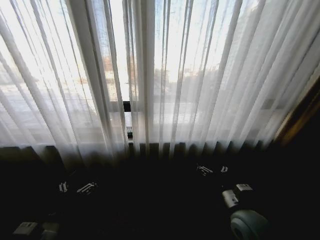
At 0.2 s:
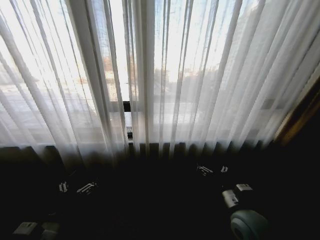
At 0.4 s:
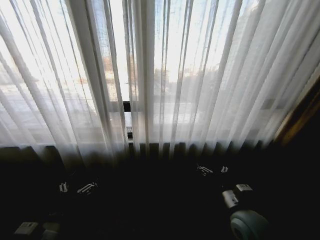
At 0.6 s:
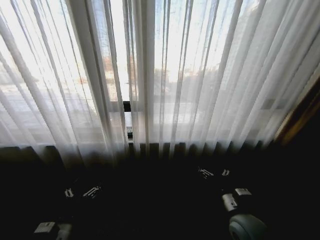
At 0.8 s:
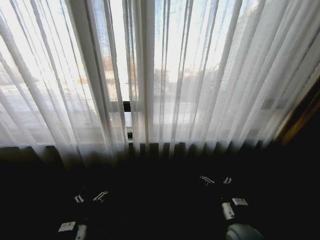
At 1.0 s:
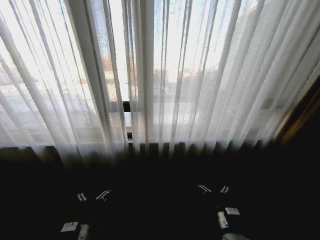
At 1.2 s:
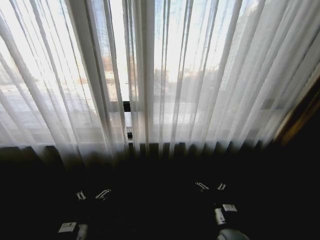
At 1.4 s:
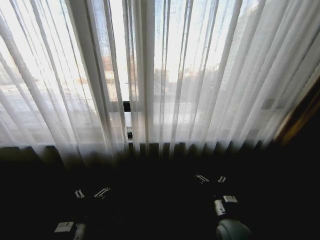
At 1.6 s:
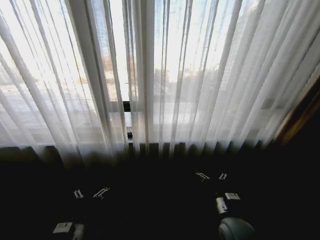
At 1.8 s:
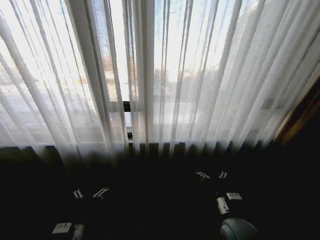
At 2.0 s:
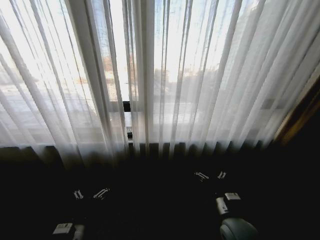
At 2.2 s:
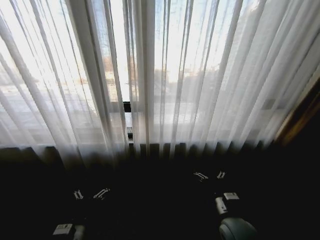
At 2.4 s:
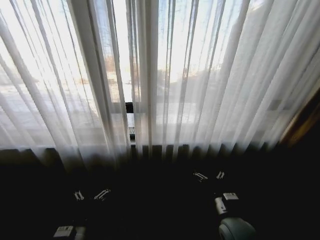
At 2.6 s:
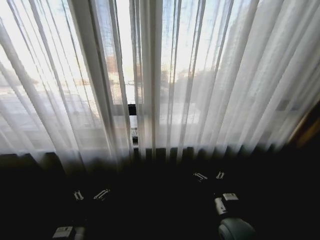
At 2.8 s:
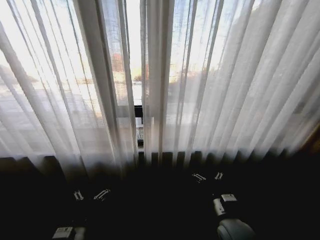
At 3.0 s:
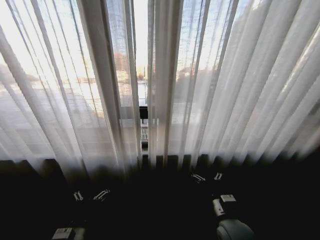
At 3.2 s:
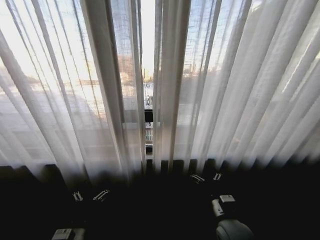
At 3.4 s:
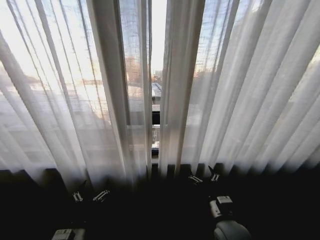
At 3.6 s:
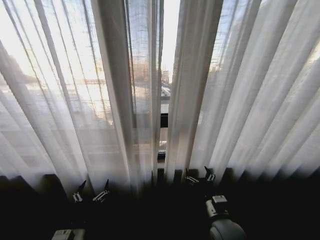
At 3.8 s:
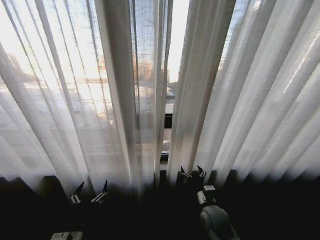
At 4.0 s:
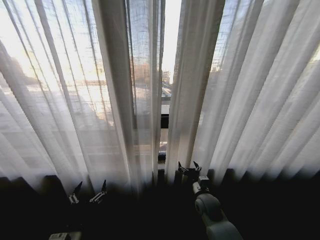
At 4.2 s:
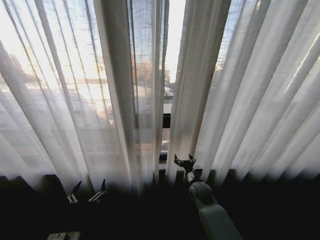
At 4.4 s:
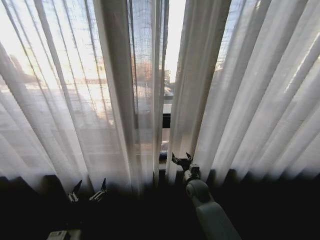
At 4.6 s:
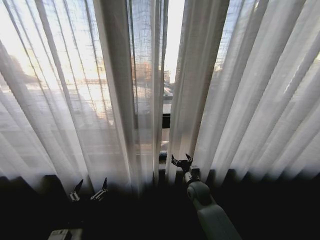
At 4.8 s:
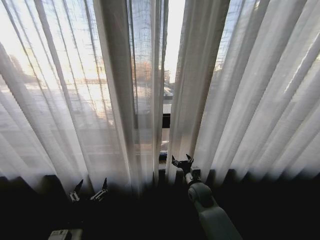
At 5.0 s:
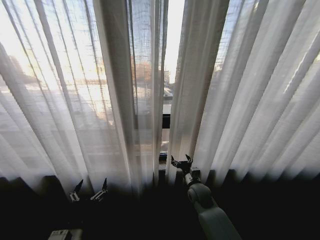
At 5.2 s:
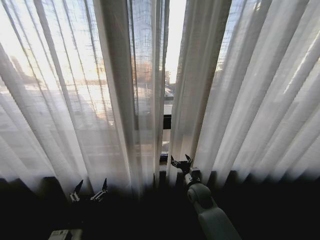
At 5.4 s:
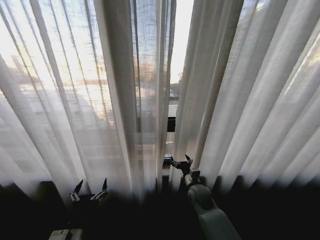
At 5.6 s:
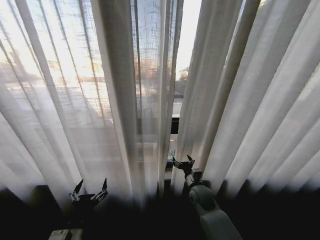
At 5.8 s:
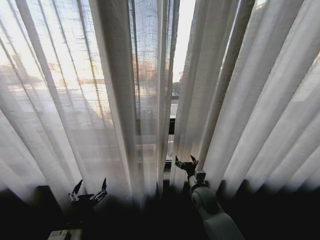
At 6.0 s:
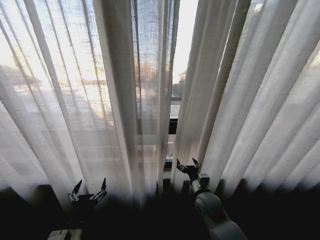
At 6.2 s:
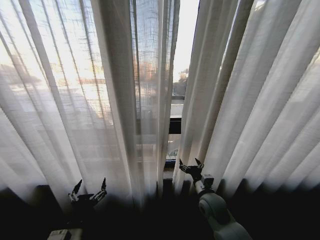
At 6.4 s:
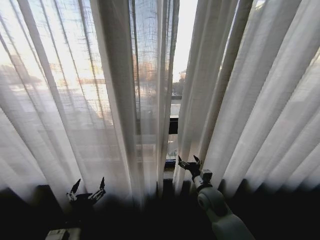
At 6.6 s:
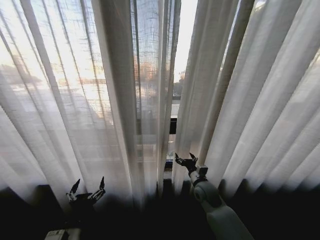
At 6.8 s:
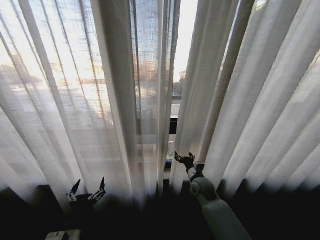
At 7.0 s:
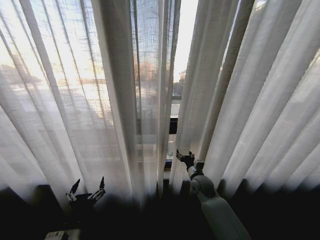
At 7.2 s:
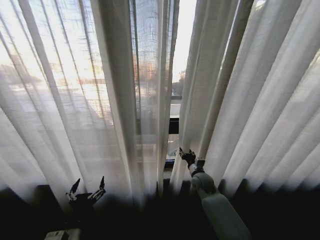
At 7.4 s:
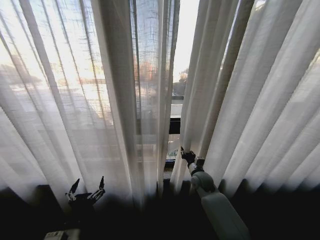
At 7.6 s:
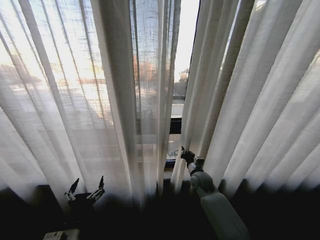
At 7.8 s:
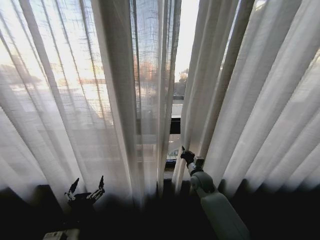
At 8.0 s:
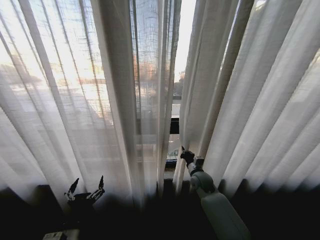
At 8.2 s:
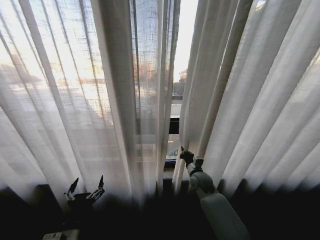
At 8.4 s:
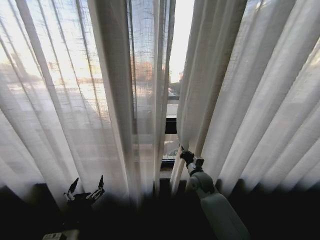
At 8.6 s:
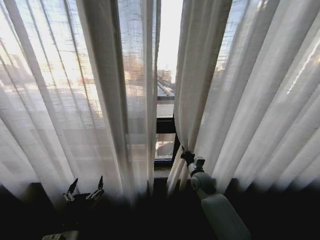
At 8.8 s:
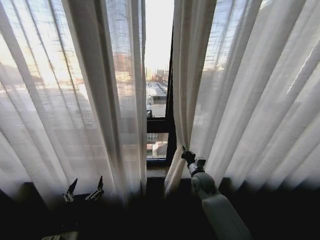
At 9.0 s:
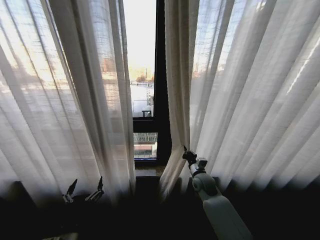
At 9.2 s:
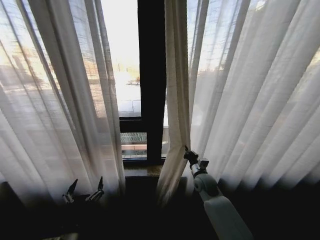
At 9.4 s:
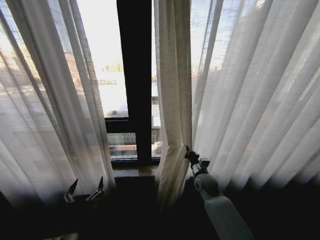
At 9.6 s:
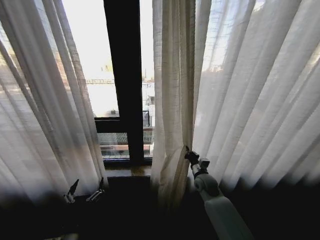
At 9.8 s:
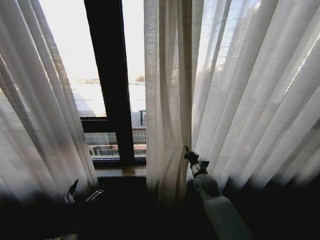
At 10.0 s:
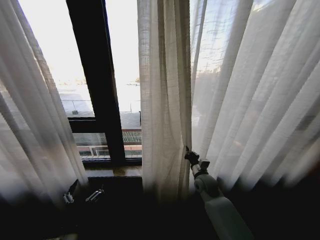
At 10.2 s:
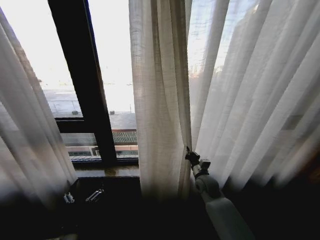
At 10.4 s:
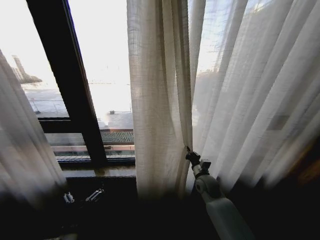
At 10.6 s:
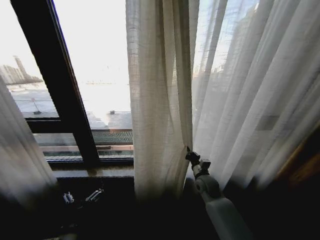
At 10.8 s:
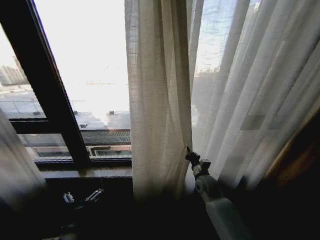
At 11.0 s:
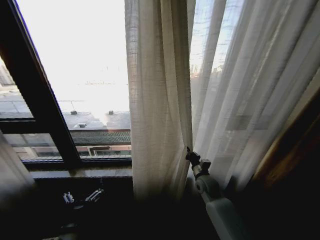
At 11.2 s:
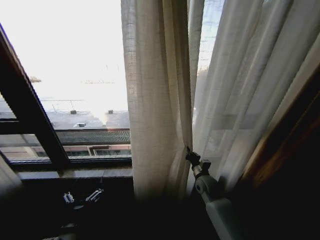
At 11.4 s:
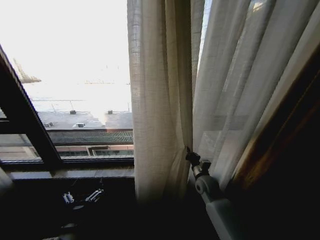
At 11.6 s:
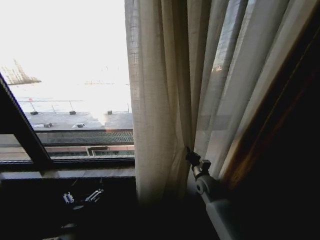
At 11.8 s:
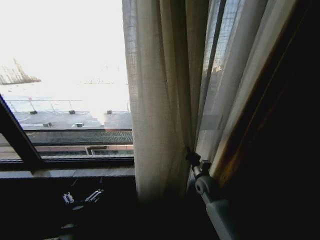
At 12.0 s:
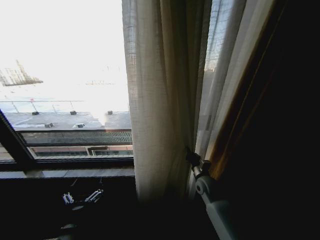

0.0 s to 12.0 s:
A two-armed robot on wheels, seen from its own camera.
Task of the whole recording: Open the curtains by pulling them apart, changing their state from closed to fully open.
3.0 to 4.4 s: The right gripper heads forward, covering roughly 20 cm.
4.4 to 6.0 s: The right gripper moves backward, some 10 cm.
6.0 to 7.6 s: The right gripper heads forward, covering about 10 cm, and closes up.

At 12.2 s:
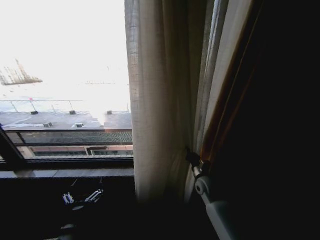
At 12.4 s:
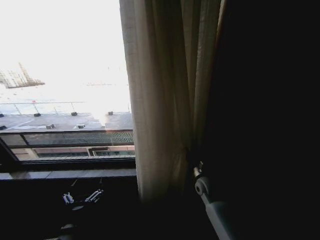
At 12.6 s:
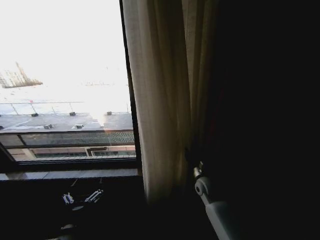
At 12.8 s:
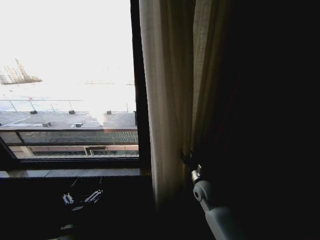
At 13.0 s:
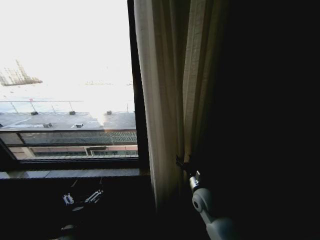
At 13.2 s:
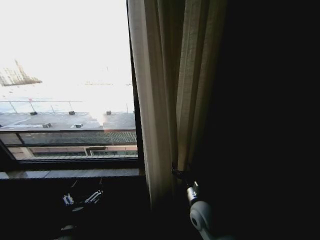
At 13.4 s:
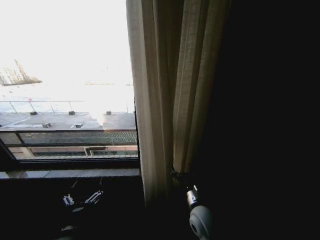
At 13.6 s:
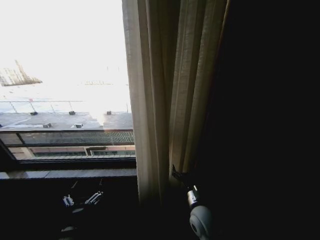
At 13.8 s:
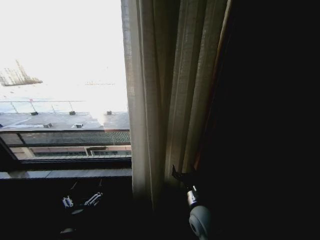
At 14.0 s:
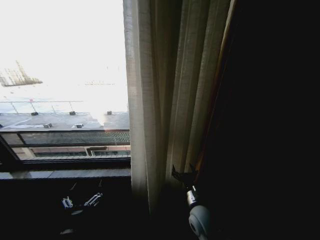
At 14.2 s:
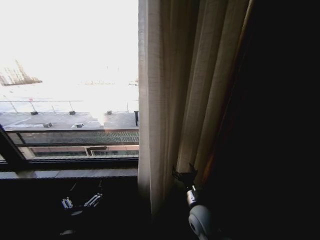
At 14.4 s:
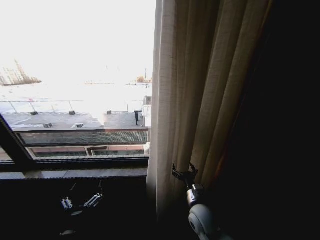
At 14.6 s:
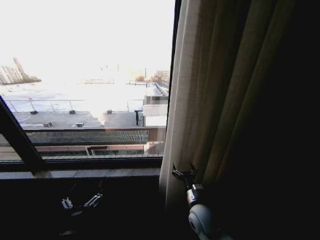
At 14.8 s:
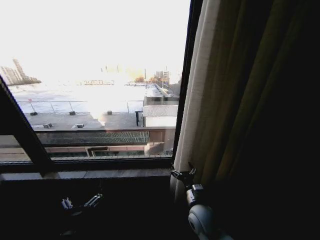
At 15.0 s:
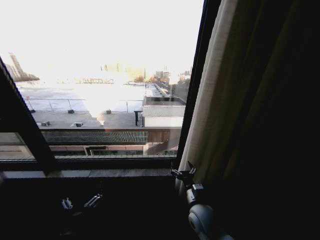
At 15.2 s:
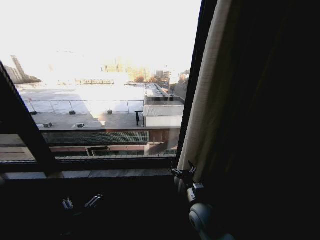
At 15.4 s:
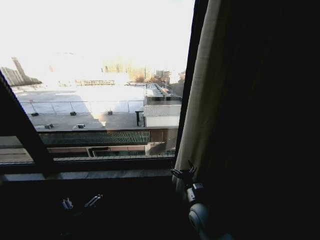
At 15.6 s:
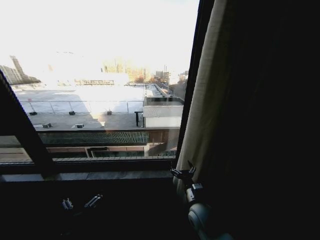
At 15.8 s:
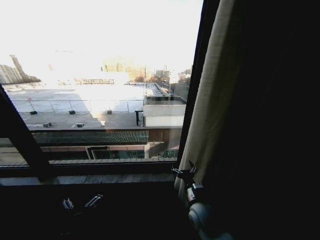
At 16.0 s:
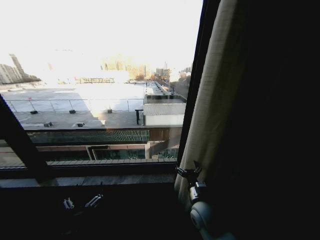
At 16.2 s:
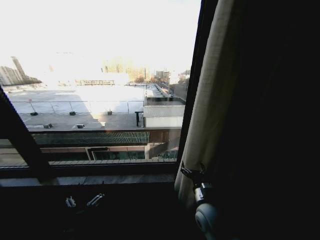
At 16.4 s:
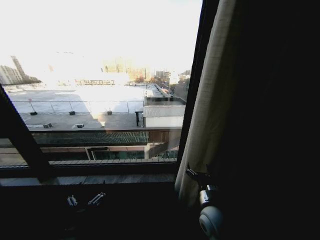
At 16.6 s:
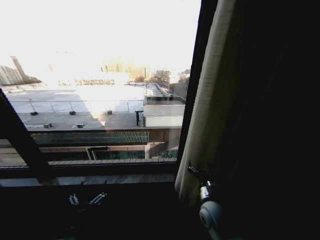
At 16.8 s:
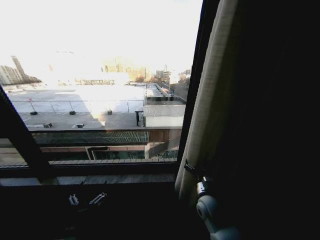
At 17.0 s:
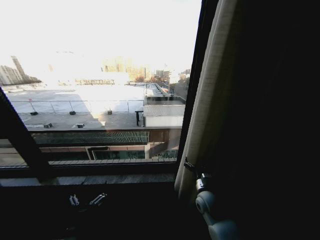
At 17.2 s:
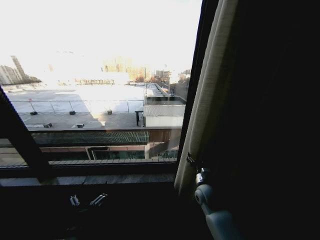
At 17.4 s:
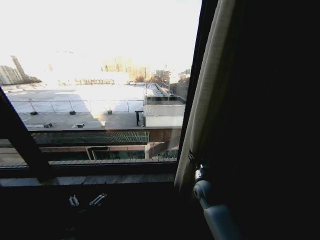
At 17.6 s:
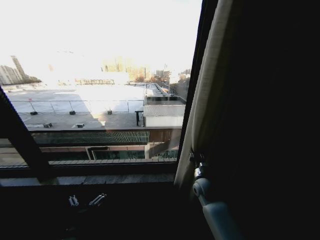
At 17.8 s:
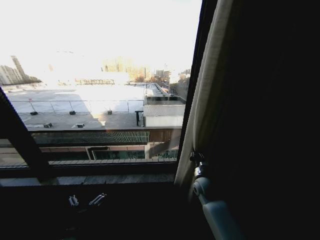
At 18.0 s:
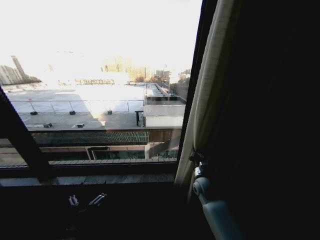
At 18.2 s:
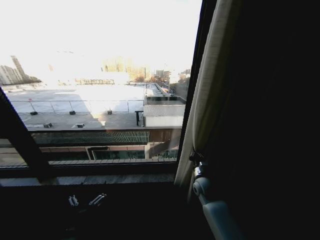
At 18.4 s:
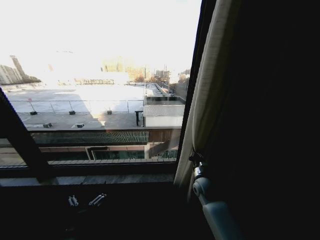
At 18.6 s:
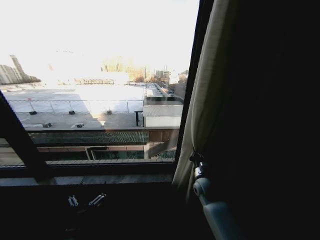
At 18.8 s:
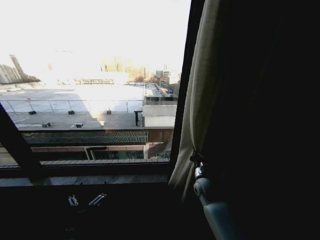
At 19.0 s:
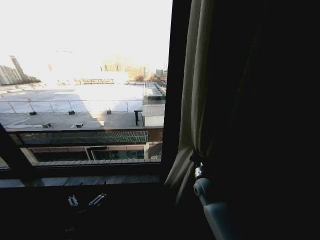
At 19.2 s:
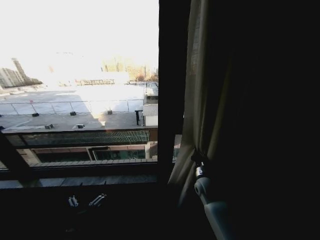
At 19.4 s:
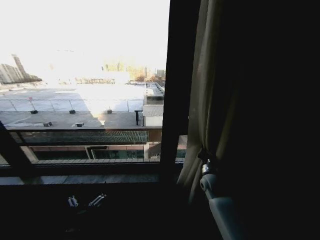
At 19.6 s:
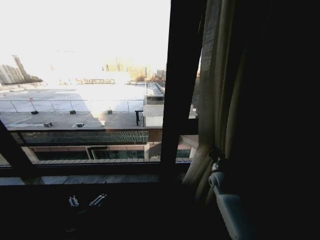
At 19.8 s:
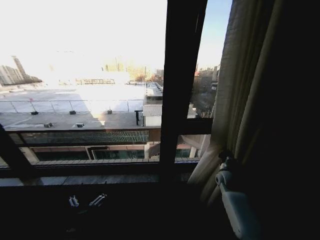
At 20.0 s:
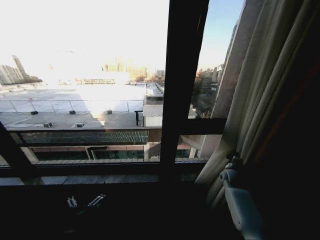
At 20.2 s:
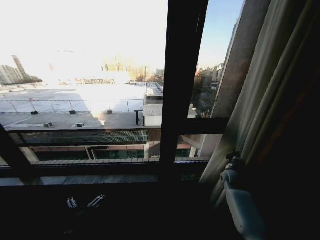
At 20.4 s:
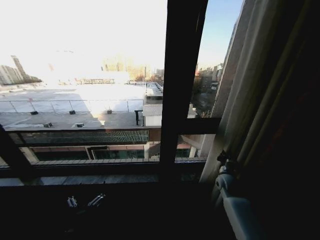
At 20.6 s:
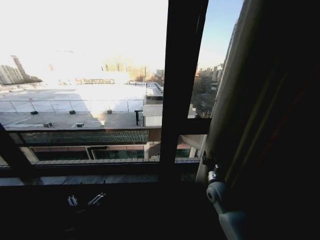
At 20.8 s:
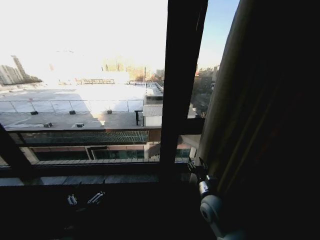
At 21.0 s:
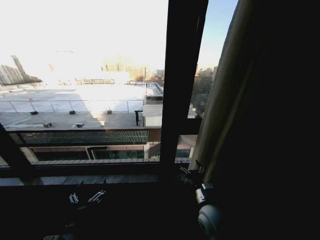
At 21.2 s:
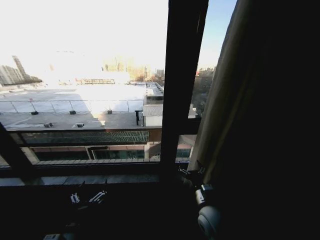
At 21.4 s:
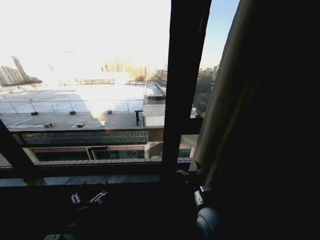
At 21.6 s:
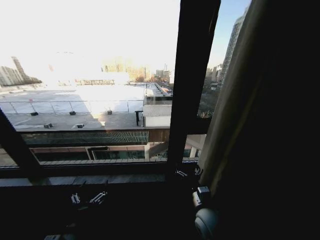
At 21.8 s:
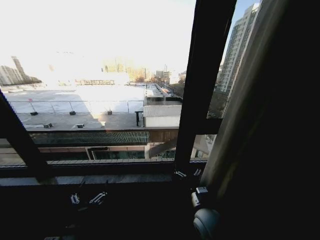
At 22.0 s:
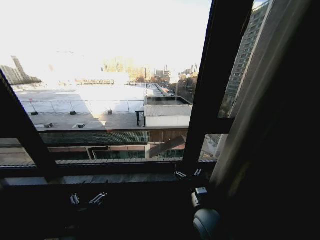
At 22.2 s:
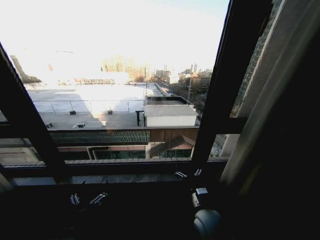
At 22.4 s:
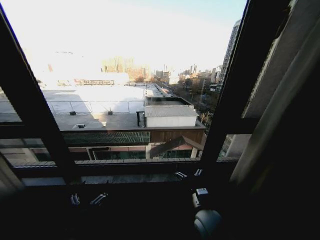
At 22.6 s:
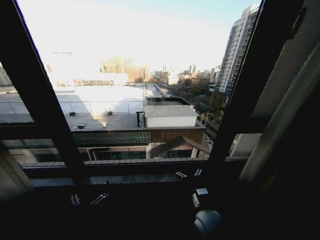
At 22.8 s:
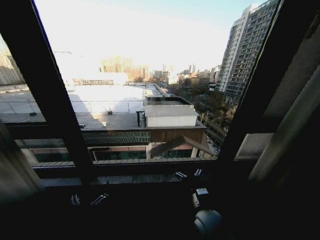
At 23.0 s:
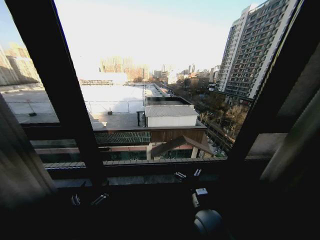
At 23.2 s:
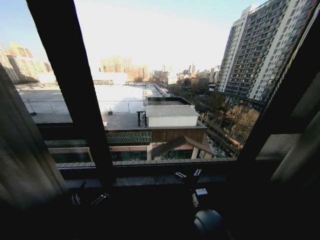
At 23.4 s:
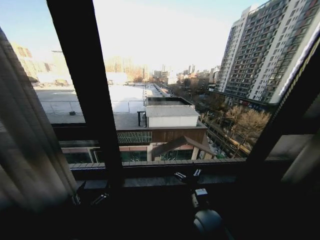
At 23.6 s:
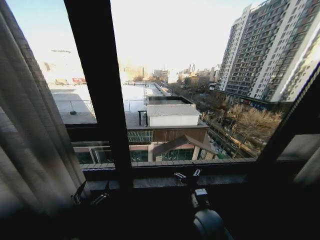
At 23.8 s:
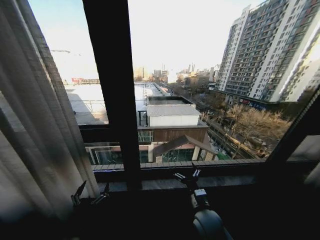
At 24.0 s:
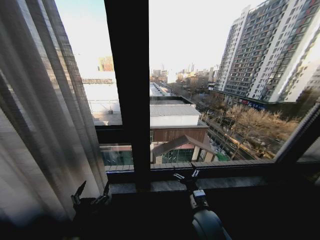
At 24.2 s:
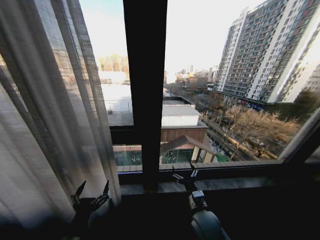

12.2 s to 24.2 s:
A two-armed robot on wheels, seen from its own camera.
Task of the whole recording: Open the curtains by pulling them apart, changing their state from closed to fully open.
12.2 to 13.8 s: The right gripper shifts roughly 15 cm backward and to the left, and opens its fingers.
15.2 to 16.6 s: The grippers move only a little.
16.6 to 18.2 s: The right gripper travels forward by roughly 15 cm, and closes up.
18.2 to 19.8 s: The right gripper heads to the right, covering about 15 cm.
19.8 to 21.2 s: The right gripper goes some 25 cm backward and to the left, and opens.
